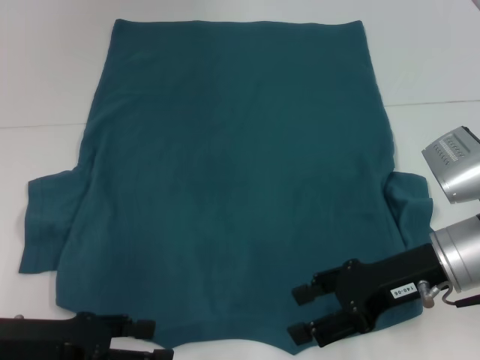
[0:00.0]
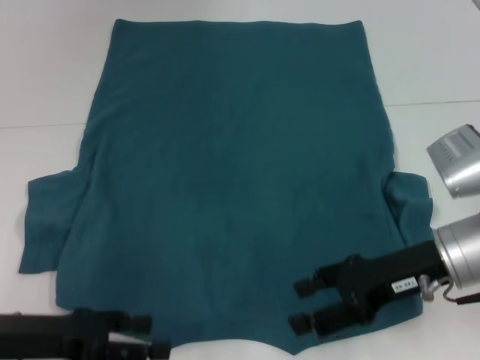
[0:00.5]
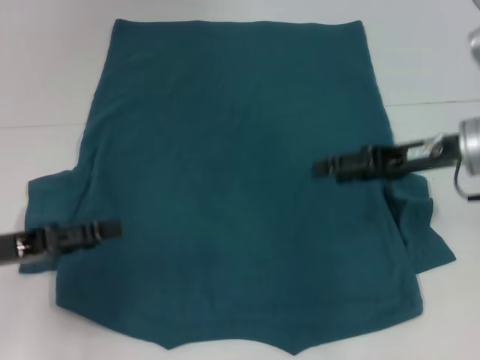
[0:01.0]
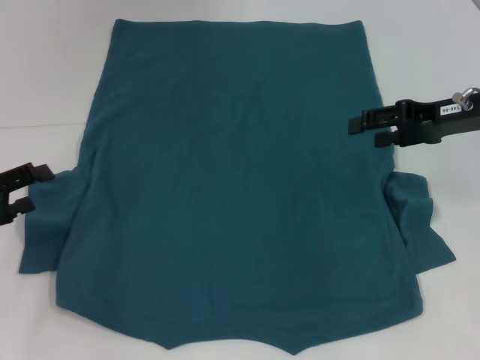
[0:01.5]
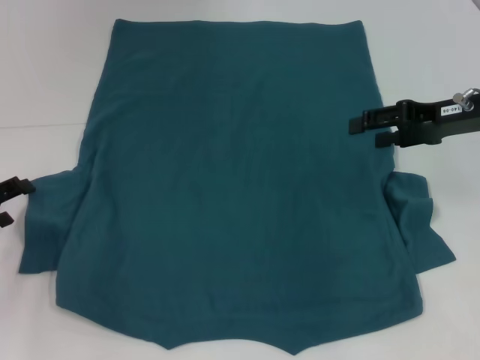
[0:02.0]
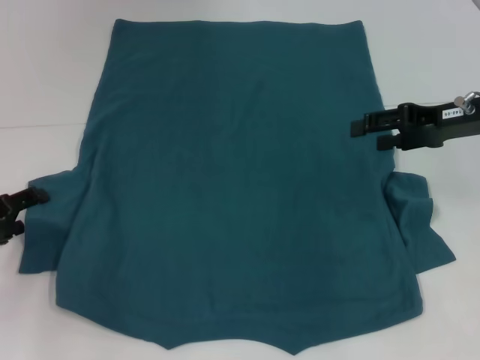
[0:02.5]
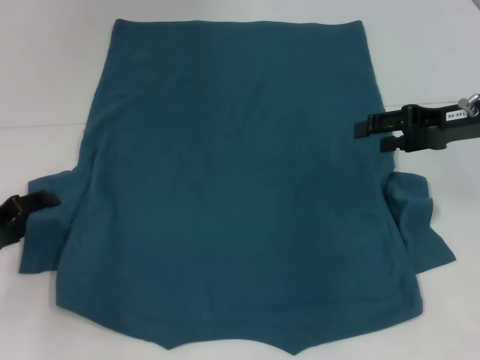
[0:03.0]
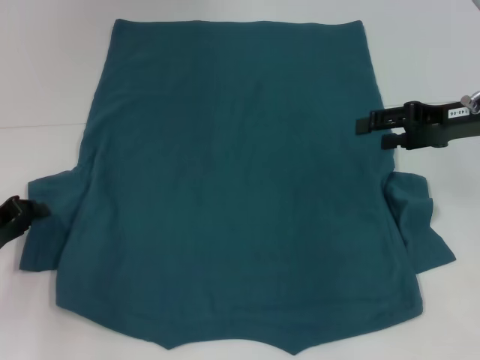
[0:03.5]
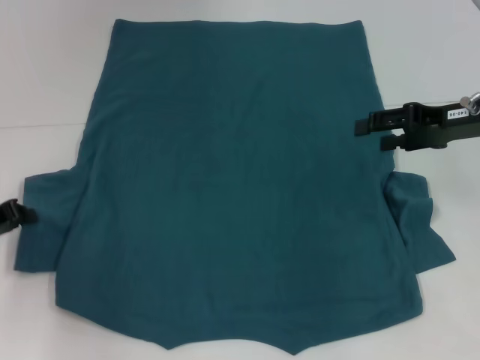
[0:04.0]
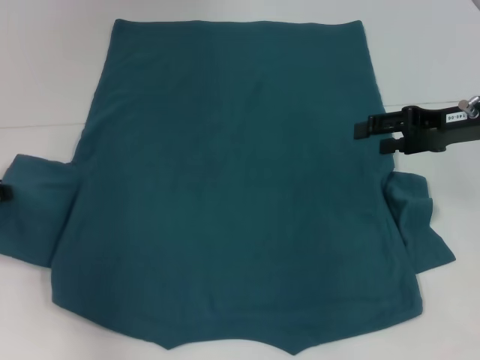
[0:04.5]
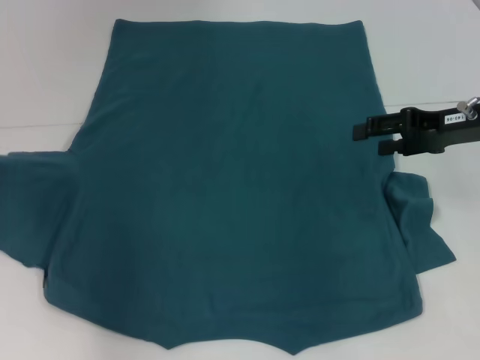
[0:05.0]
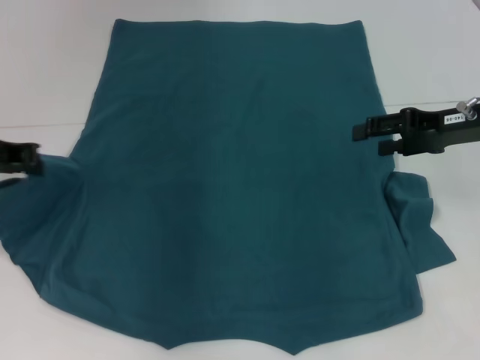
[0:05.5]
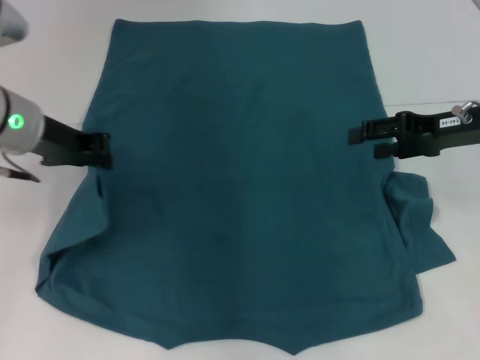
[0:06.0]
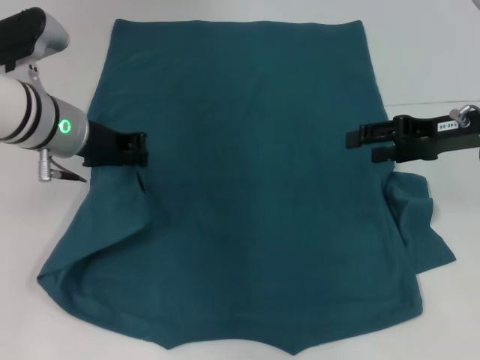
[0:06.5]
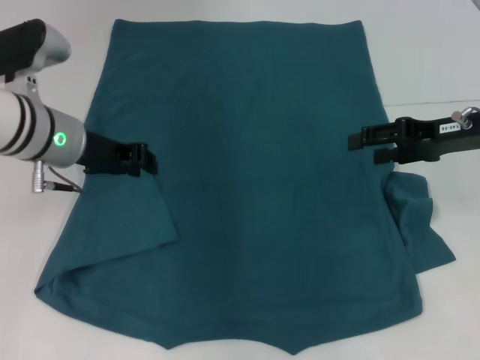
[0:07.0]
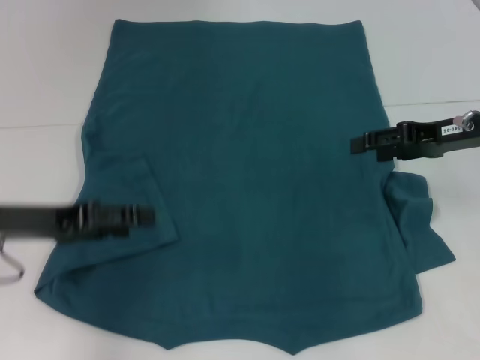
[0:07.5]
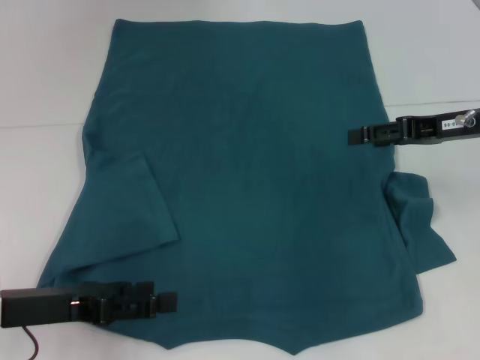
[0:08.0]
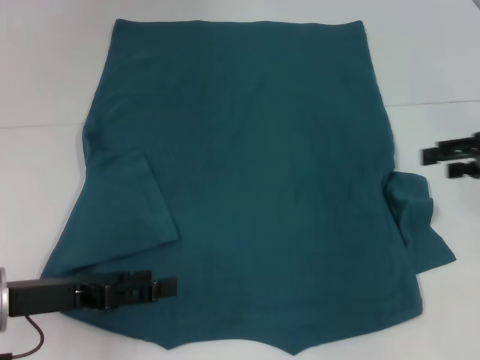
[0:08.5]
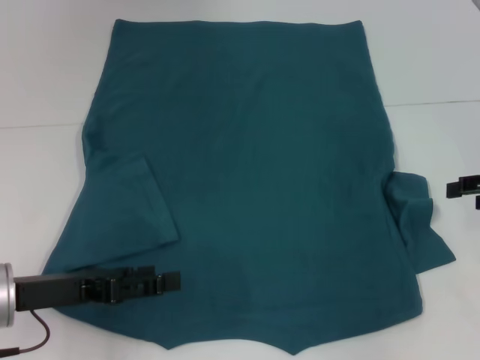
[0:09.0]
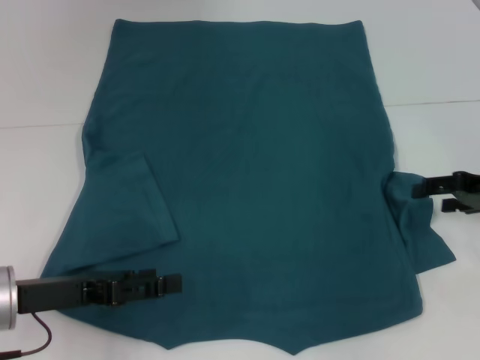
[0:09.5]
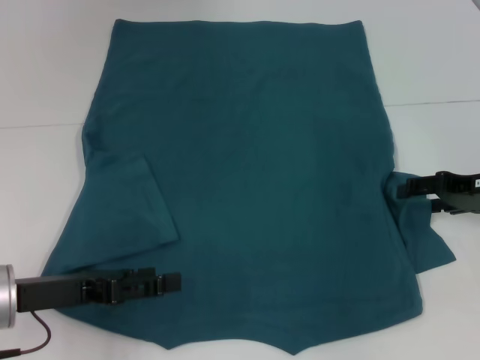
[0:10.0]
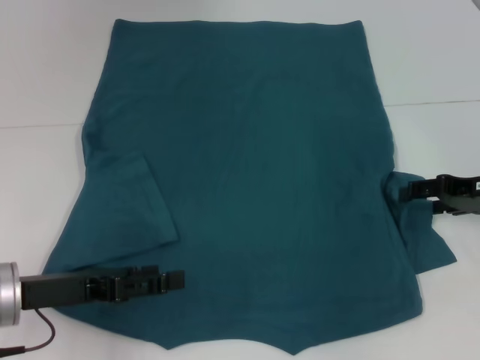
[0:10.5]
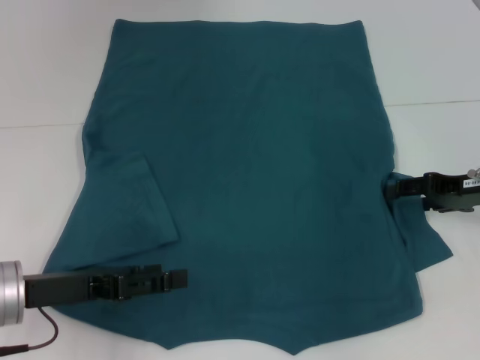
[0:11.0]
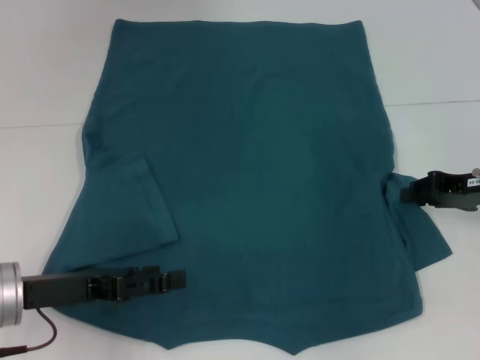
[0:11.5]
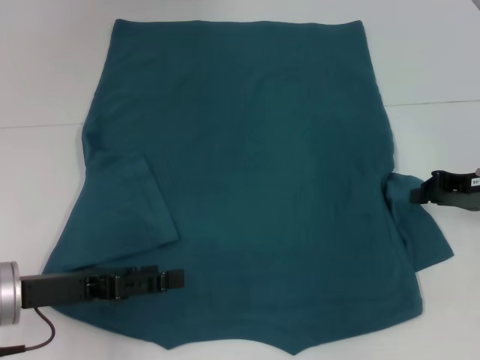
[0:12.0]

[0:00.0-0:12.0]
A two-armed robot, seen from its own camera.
Step, 0.0 to 7.0 s: Fold the bottom left sleeve with your left hand.
0.0 to 2.0 s: The right gripper shifts some 15 cm forward, to the right and upward; the left gripper travels to the left and forward by some 10 cm.
2.0 to 4.0 s: The left gripper closes up.
4.0 to 6.0 s: The left gripper travels to the right, upward and forward by approximately 20 cm.
6.0 to 8.0 s: The left gripper travels backward and downward by some 15 cm, and opens its fingers.
8.0 to 10.0 s: The right gripper goes roughly 5 cm downward.
10.0 to 12.0 s: The right gripper closes up.

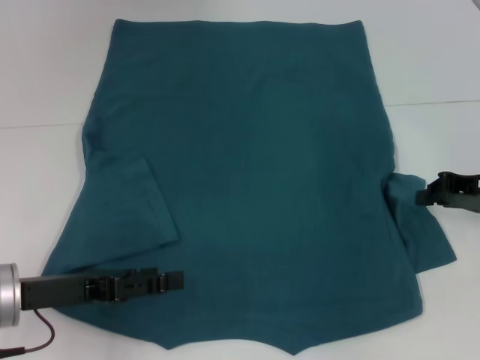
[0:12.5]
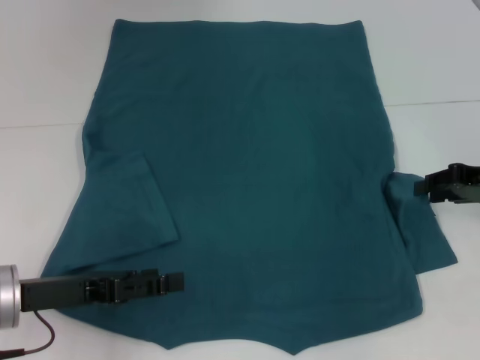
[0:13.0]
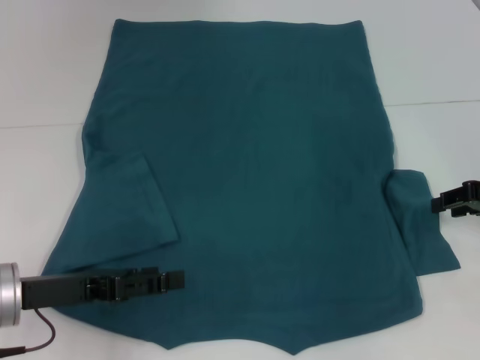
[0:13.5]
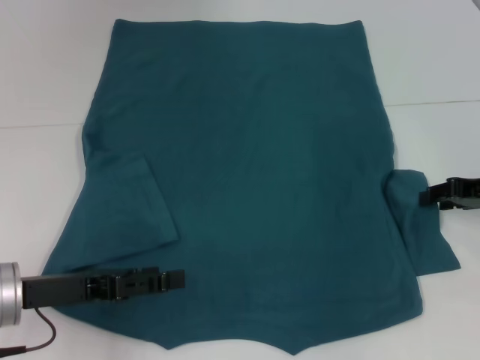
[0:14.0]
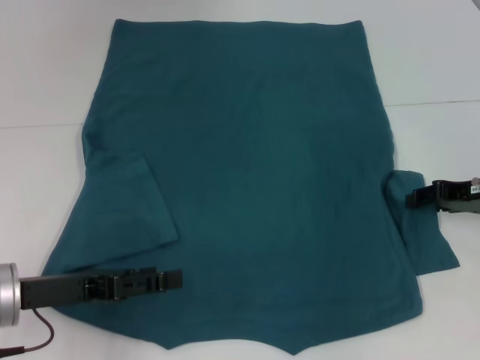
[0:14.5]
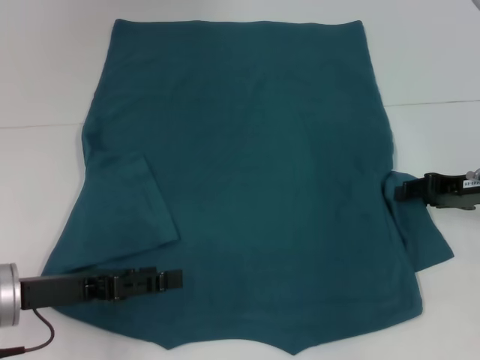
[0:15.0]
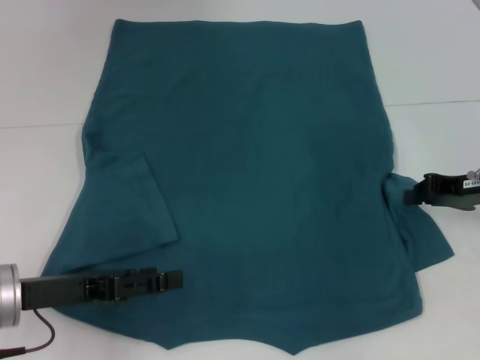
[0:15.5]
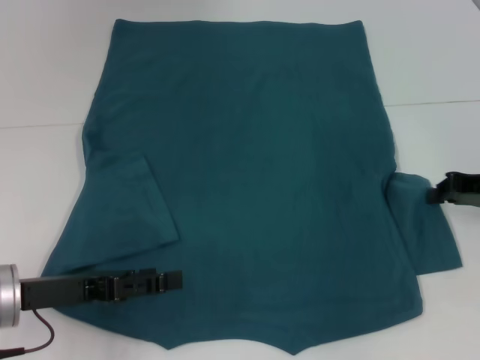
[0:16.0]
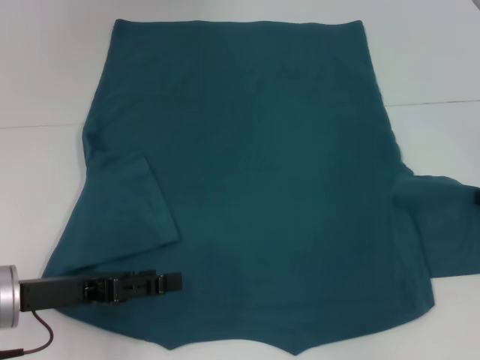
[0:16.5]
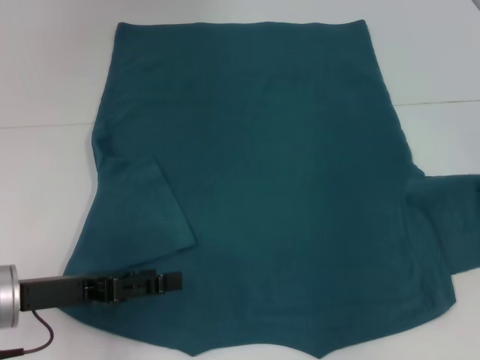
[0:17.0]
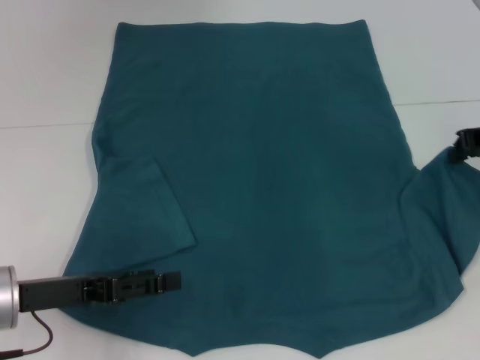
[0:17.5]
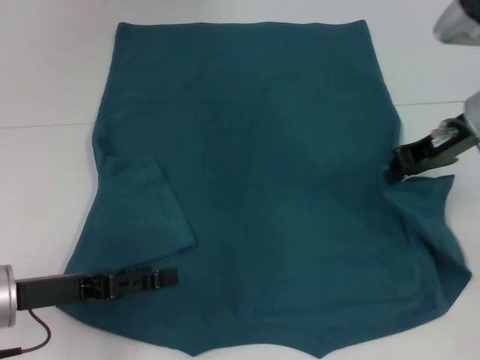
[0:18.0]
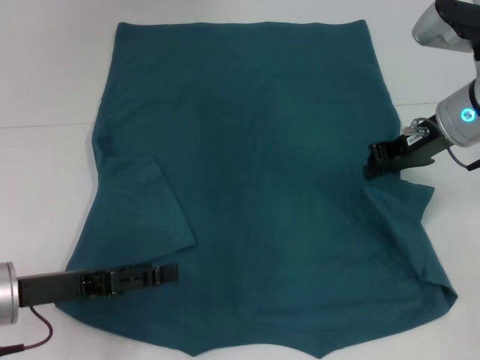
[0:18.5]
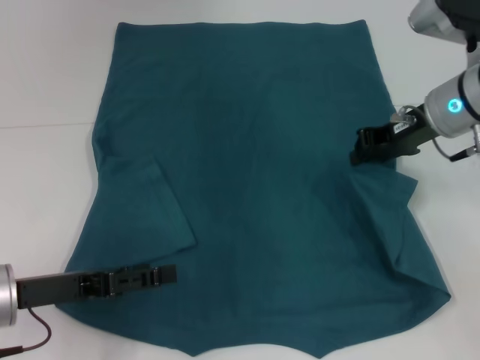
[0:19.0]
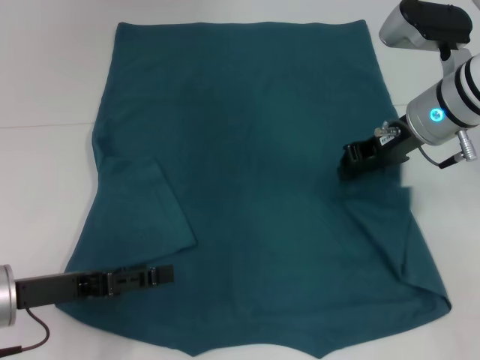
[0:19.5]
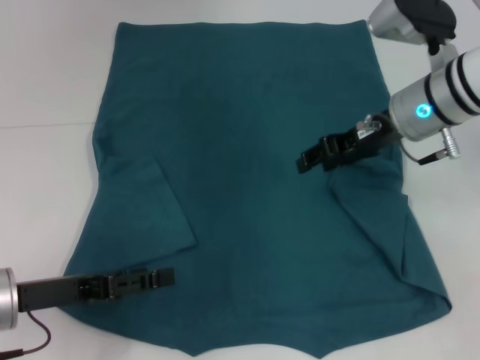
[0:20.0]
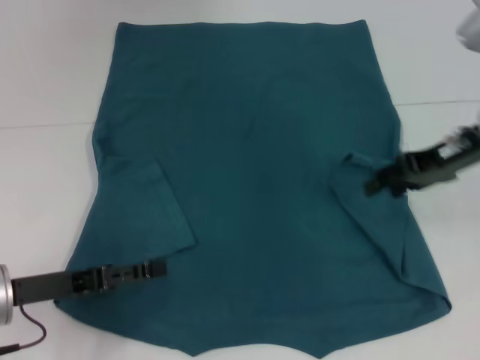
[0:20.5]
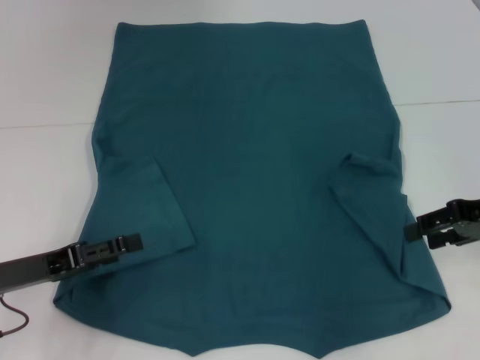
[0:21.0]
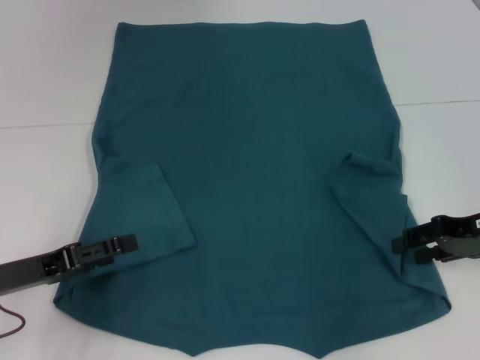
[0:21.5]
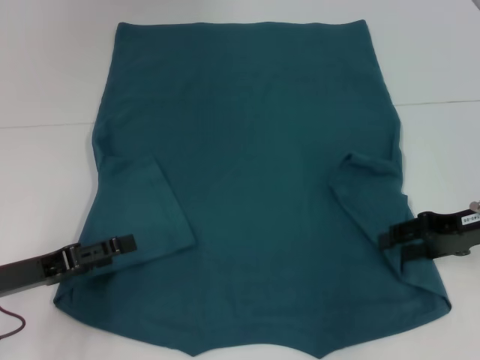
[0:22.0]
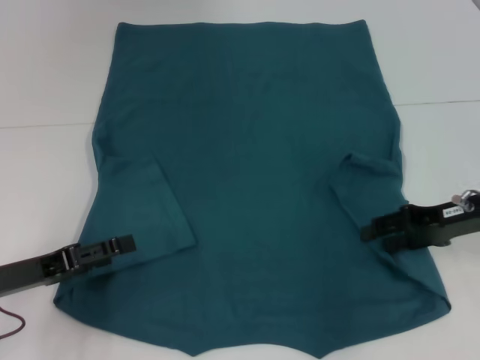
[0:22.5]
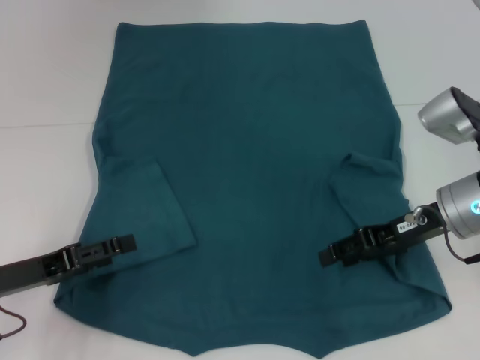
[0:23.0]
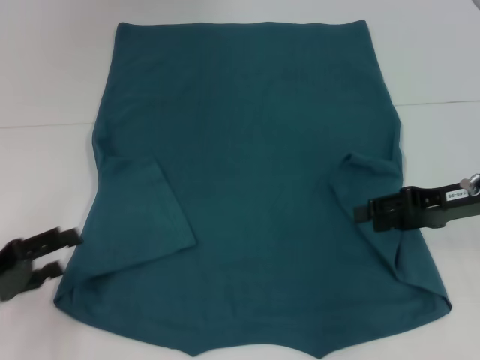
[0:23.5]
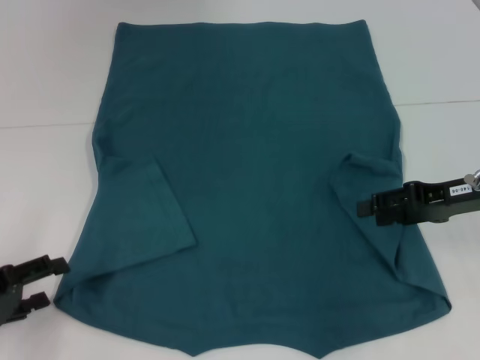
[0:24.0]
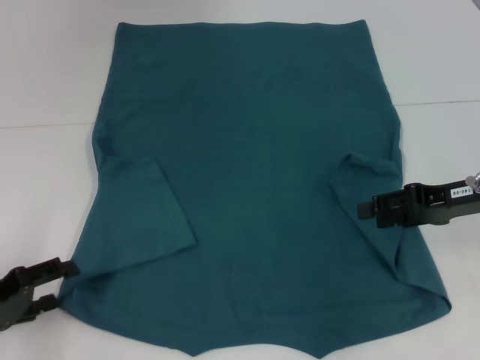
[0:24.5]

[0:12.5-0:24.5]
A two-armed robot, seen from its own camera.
Step, 12.5 to 23.0 s: Fold the bottom right sleeve to the right.
12.5 to 14.5 s: The right gripper opens its fingers.
14.5 to 16.5 s: The right gripper heads to the right, covering about 5 cm, and closes its fingers.
16.5 to 18.5 s: The right gripper is displaced to the left and forward by approximately 15 cm.
18.5 to 20.5 s: The right gripper opens.
20.5 to 22.5 s: The right gripper goes approximately 5 cm downward.
22.5 to 24.5 s: The left gripper moves roughly 5 cm.

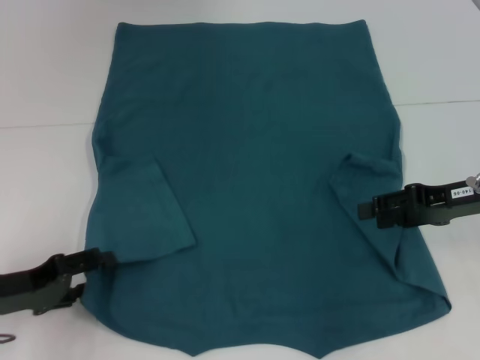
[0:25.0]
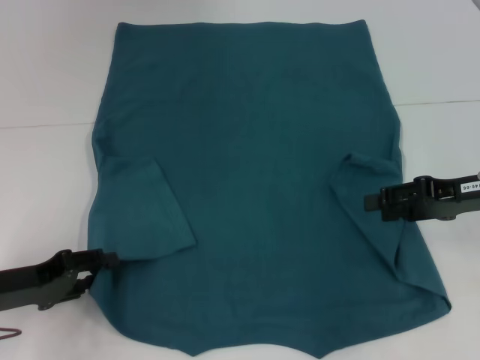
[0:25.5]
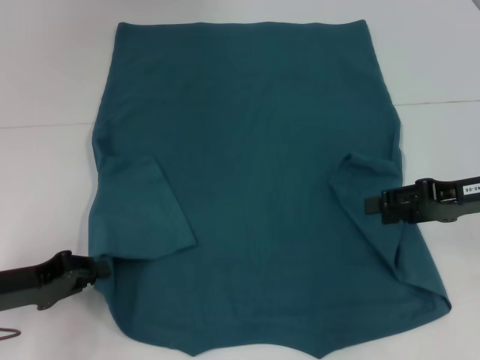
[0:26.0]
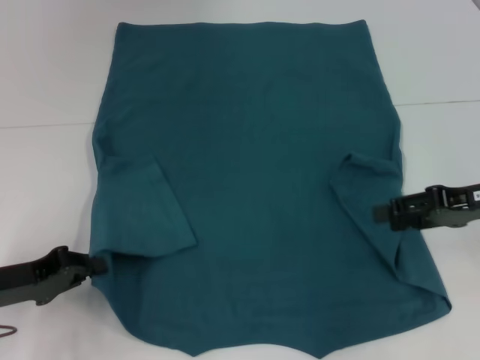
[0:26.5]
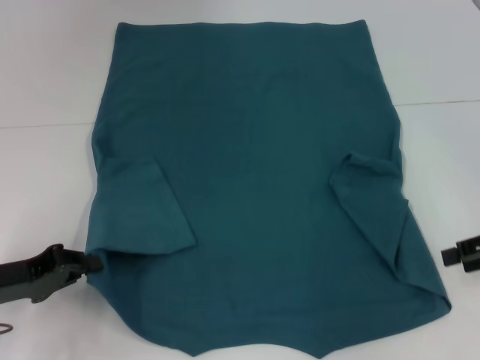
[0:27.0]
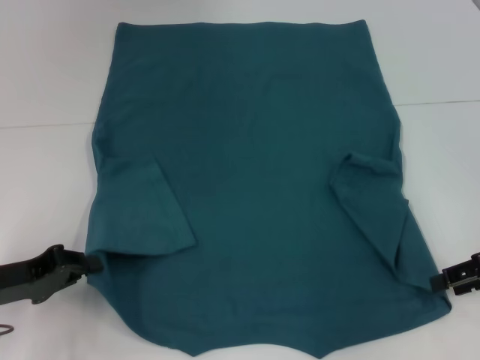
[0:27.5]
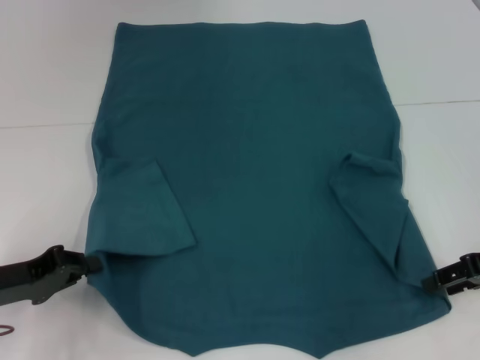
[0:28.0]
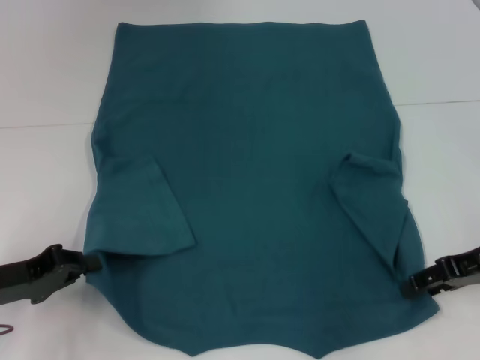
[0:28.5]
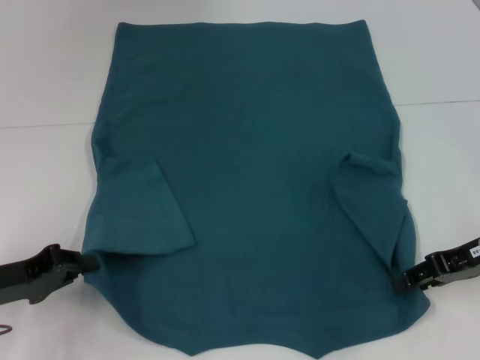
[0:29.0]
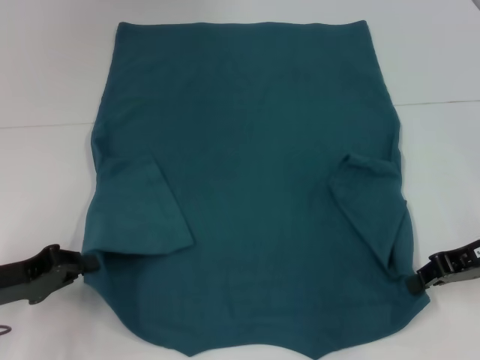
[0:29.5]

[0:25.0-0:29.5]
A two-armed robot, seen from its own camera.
25.0 to 27.0 s: The right gripper goes roughly 5 cm to the right. The left gripper closes up.
27.0 to 29.5 s: The right gripper heads to the left, covering about 5 cm, and closes.
